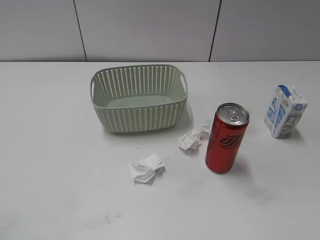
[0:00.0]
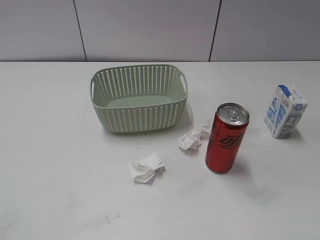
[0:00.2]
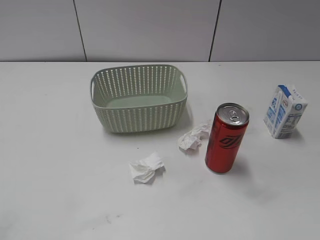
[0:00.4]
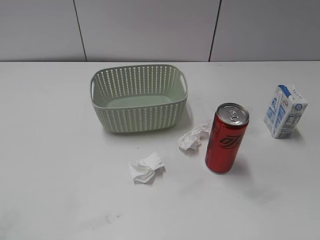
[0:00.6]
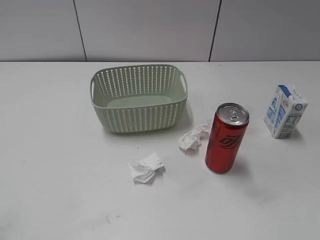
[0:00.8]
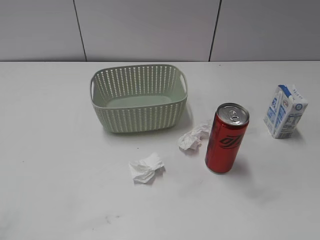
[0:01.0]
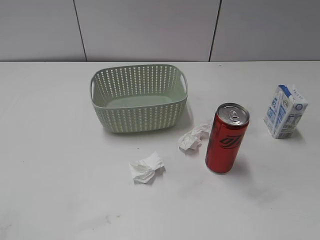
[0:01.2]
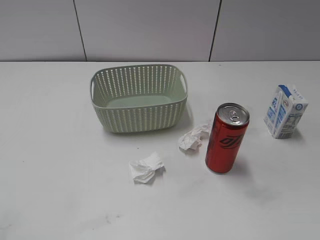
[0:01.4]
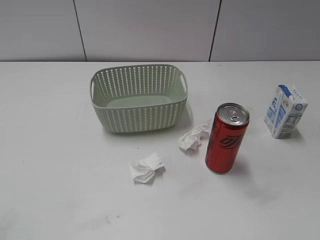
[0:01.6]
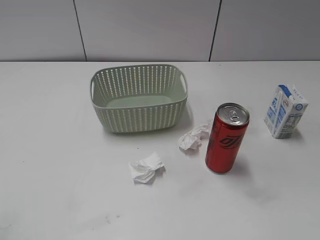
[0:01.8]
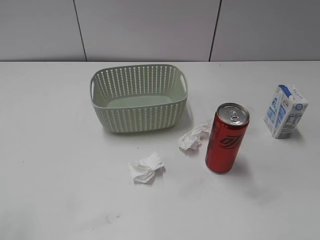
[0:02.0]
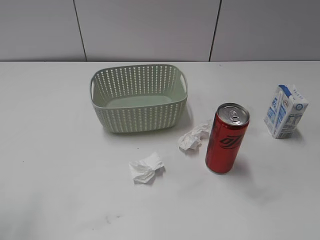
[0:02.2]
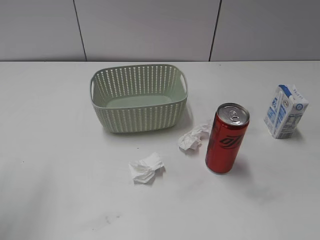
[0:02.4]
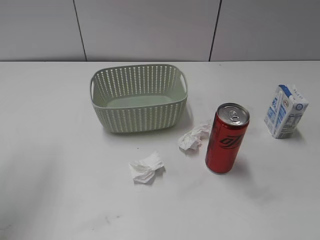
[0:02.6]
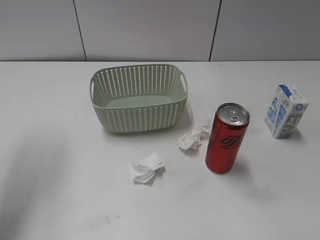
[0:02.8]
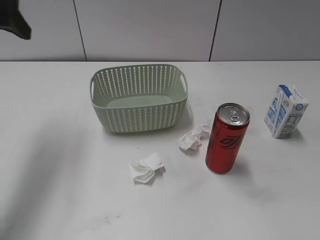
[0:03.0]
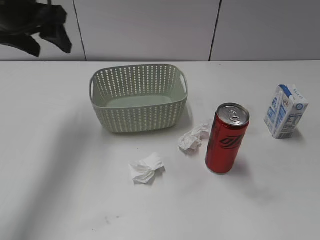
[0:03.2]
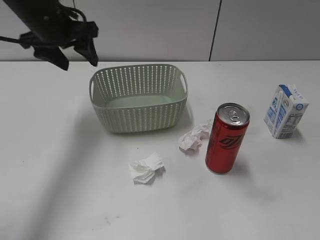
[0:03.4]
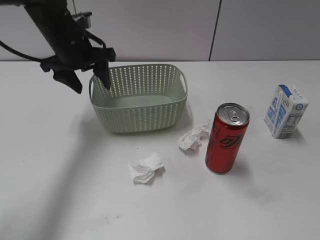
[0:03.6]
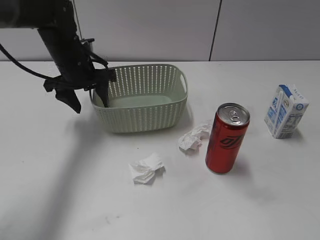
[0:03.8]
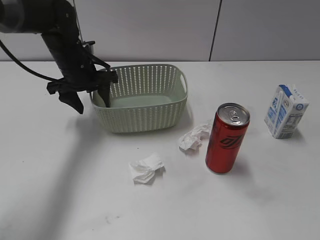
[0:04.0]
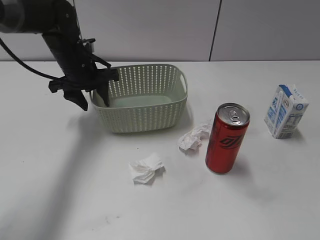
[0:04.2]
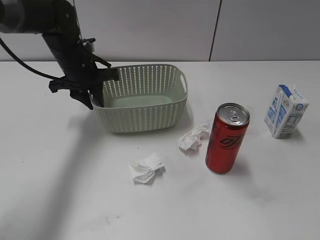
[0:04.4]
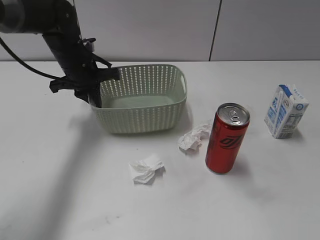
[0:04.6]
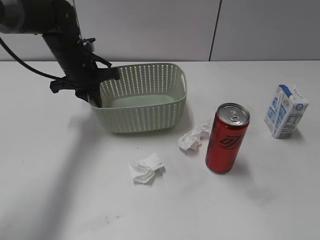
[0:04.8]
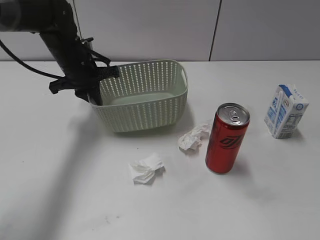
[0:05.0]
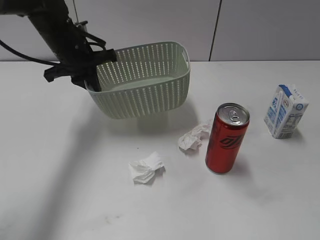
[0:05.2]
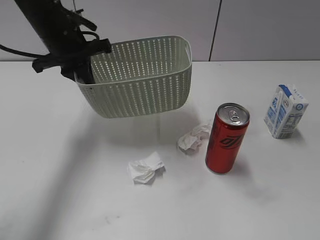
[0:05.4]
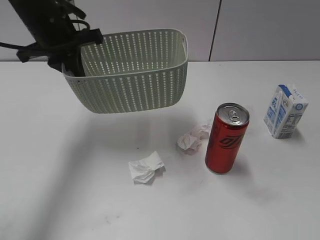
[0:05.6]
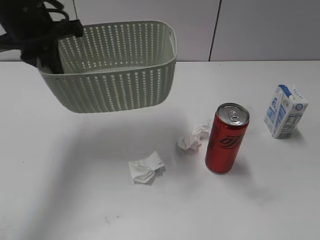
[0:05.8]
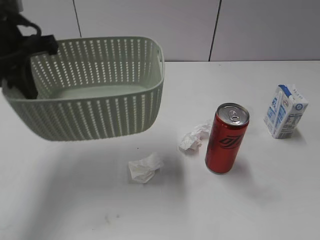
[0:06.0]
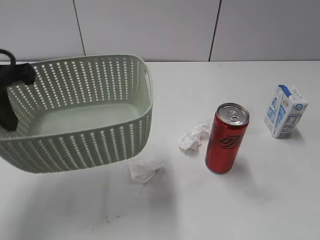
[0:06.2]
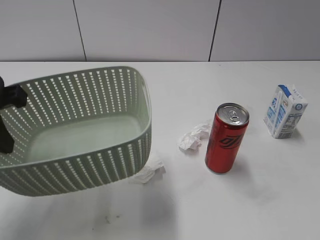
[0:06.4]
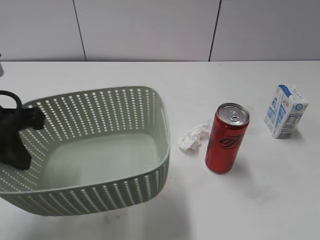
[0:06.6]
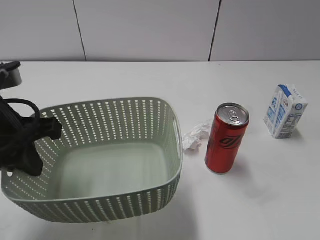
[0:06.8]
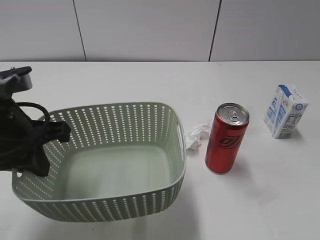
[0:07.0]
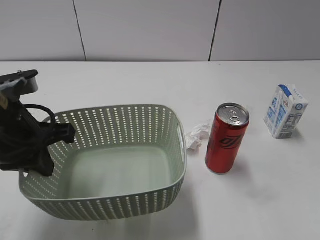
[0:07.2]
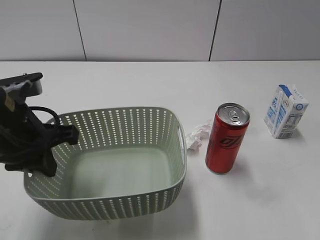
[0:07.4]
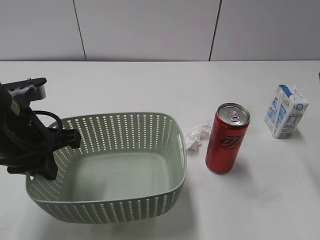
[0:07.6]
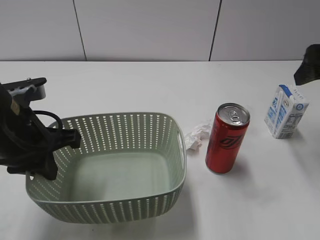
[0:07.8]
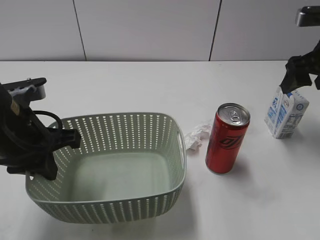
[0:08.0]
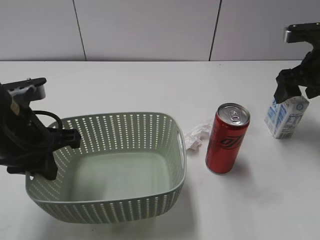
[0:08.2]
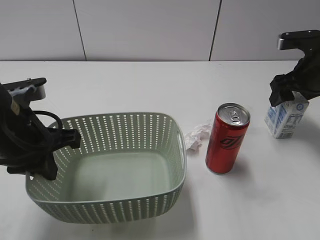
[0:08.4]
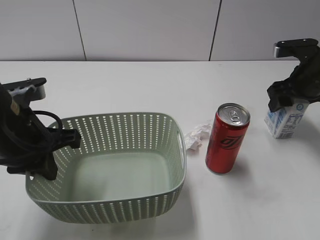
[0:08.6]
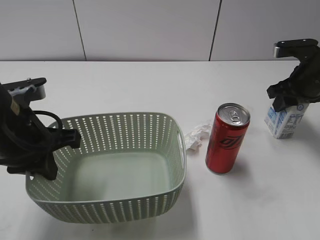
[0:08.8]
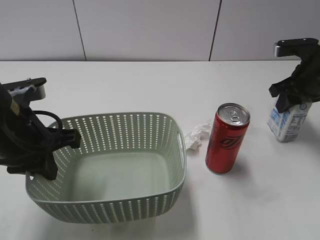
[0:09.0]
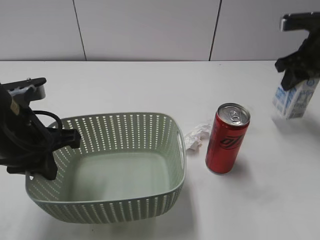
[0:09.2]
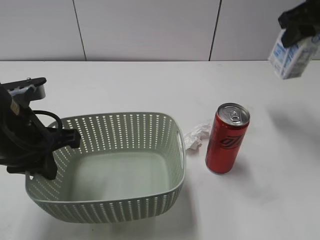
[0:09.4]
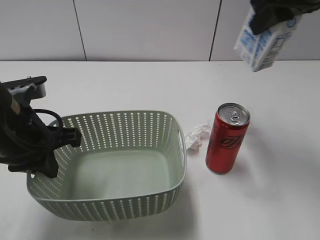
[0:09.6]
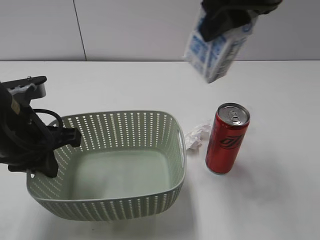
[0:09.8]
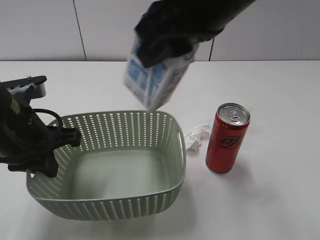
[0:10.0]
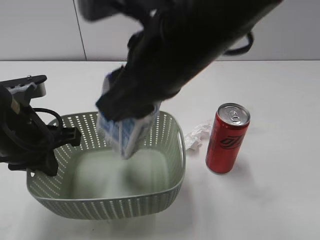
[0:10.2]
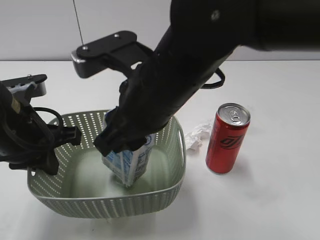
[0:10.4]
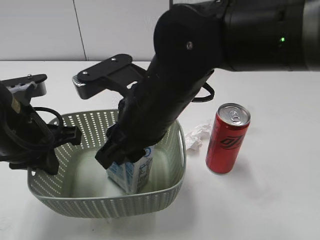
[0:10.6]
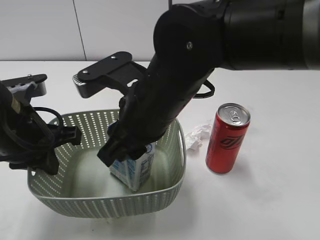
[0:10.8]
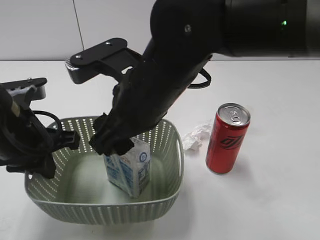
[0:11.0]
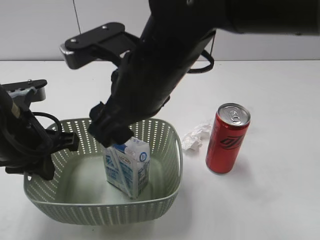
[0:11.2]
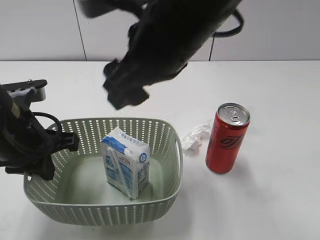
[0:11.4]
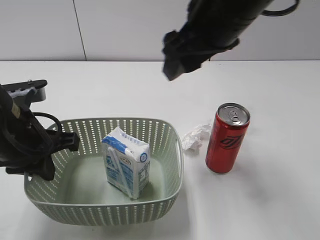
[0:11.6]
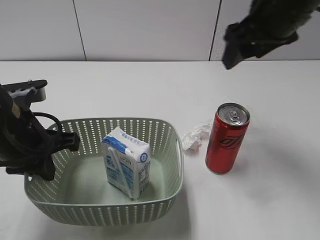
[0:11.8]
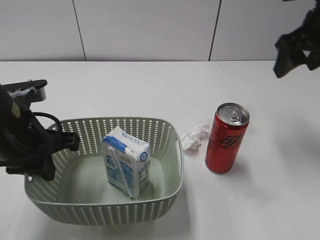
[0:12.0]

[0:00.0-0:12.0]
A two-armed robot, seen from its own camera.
Step, 0:03.0 to 0:04.8: Grasp the basket with left gripper.
Step, 0:05.0 to 0:07.4: Lift the basket with left gripper.
Step, 0:07.6 to 0:08.8: Grasp the milk with right gripper.
Step, 0:09.0 to 0:11.2: Place the milk in the basket with right gripper.
0:01.6 to 0:03.0: The left gripper shifts roughly 30 cm forward.
0:03.0 to 0:04.4: The left gripper moves downward, to the right and forward, some 20 cm, and closes up.
0:04.4 to 0:06.0: The left gripper travels backward and upward by roughly 20 cm.
0:06.0 to 0:07.6: The left gripper travels downward and backward by about 10 cm; the right gripper goes approximately 25 cm forward.
0:07.6 to 0:09.0: The right gripper travels forward and downward by roughly 20 cm, and closes up.
0:09.0 to 0:10.4: The right gripper heads to the left and backward, covering approximately 35 cm.
0:10.4 to 0:12.0: The right gripper moves to the right and forward, about 30 cm, and opens its fingers.

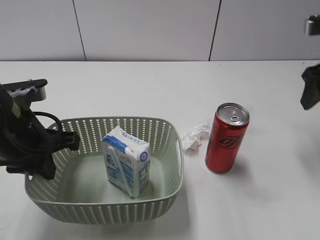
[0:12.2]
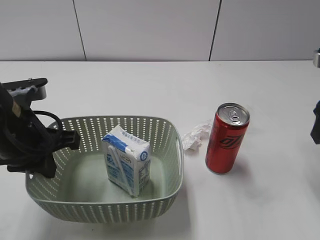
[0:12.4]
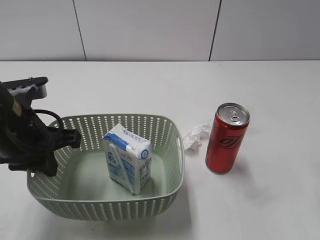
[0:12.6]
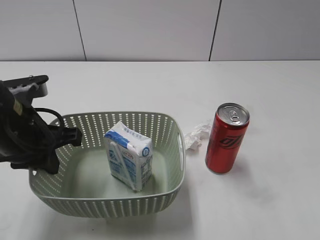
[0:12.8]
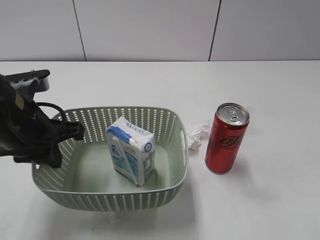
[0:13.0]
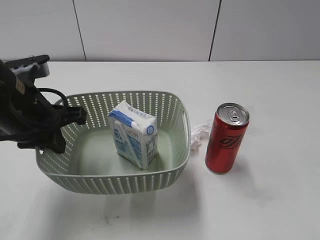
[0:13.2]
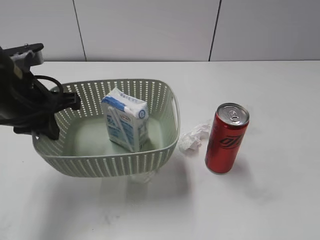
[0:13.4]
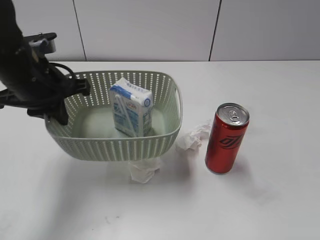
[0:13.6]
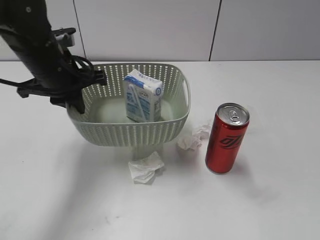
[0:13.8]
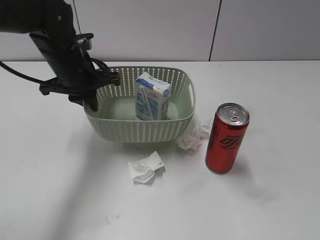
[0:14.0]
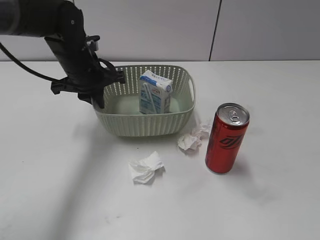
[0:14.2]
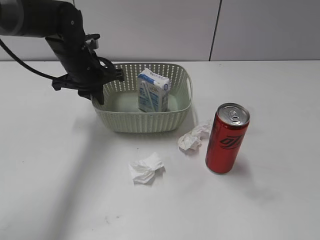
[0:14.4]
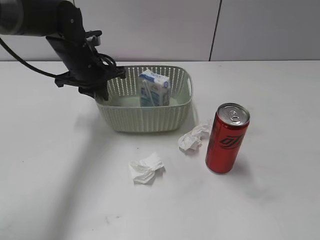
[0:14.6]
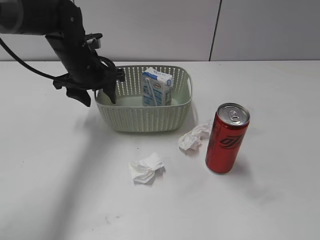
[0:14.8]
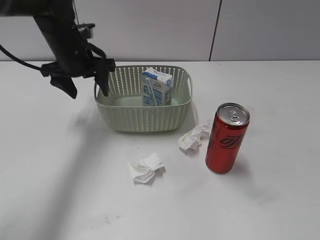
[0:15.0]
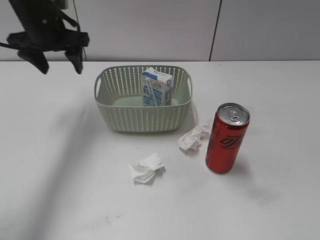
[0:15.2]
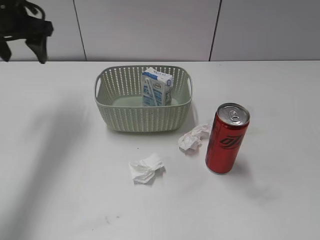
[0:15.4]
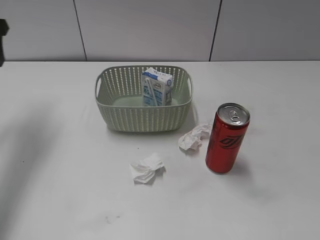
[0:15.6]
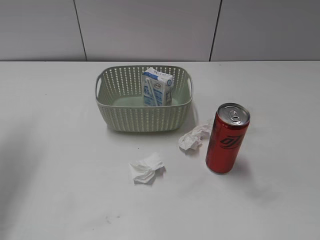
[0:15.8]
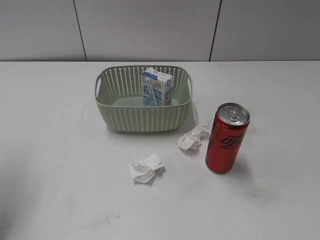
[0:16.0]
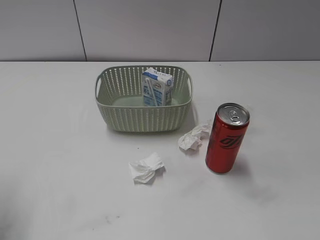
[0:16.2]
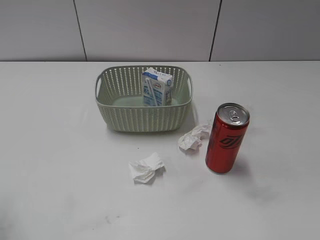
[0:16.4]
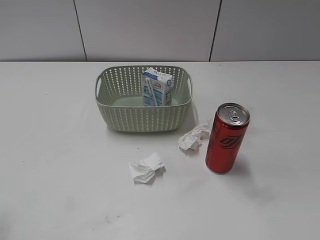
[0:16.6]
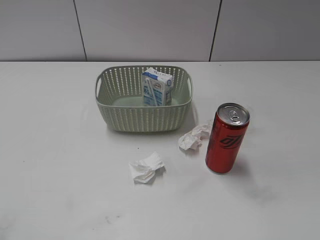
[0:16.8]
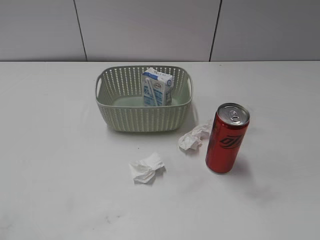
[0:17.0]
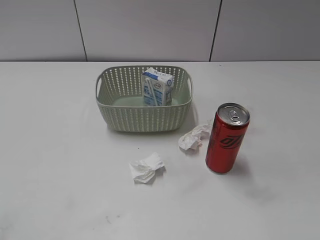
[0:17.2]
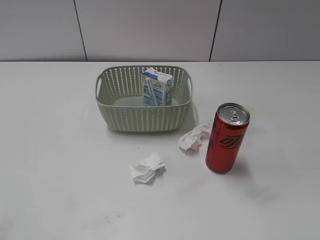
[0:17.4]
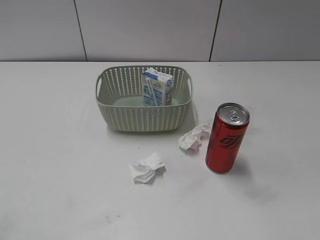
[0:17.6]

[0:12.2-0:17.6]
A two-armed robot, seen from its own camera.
Step, 0:12.2 to 0:15.0: Place the basket on the table with left gripper.
0:12.2 to 0:13.6: The right gripper moves backward, about 25 cm. Meanwhile the left gripper goes roughly 10 cm forward.
0:13.6 to 0:15.0: The left gripper shifts some 15 cm forward, and opens its fingers.
0:15.0 to 0:16.2: The left gripper is displaced backward and to the left by roughly 30 cm.
0:16.2 to 0:17.6: The left gripper shifts roughly 20 cm backward.
